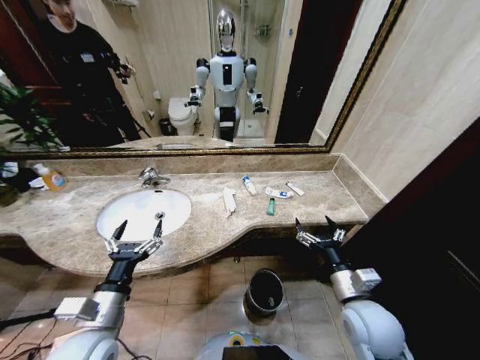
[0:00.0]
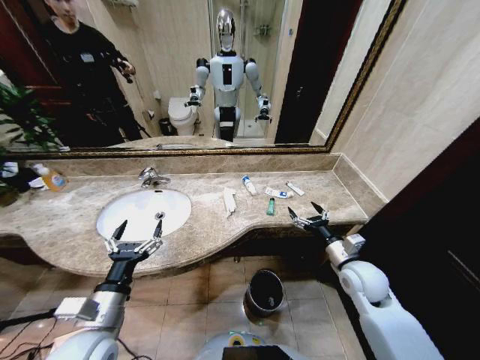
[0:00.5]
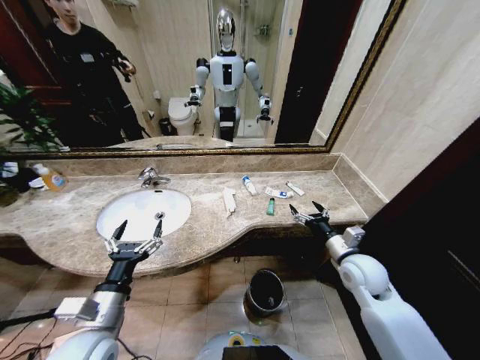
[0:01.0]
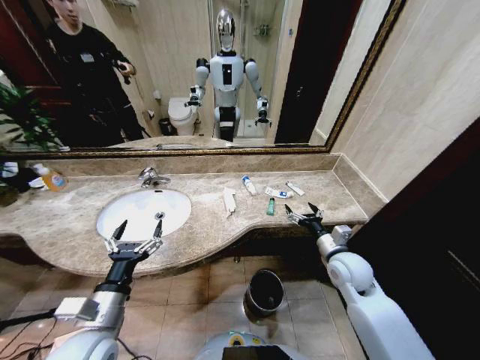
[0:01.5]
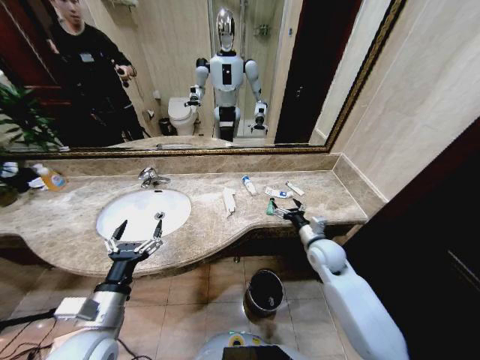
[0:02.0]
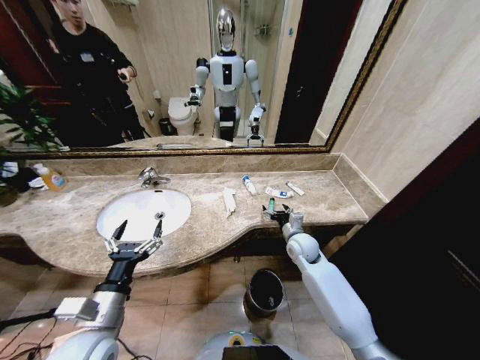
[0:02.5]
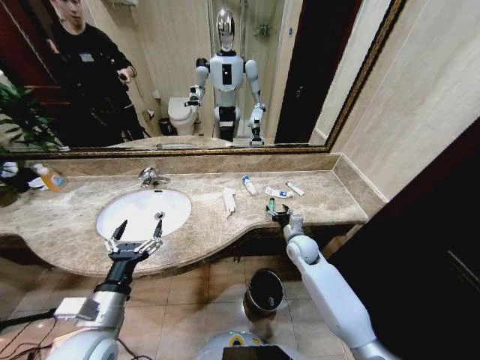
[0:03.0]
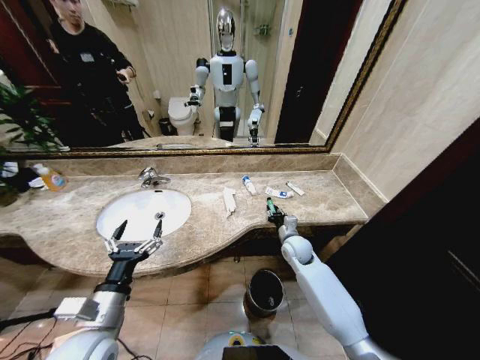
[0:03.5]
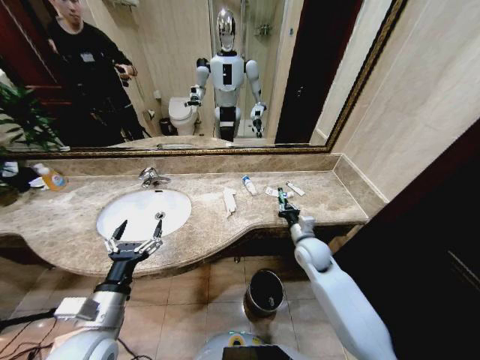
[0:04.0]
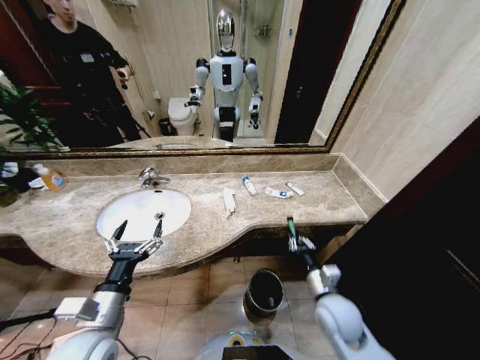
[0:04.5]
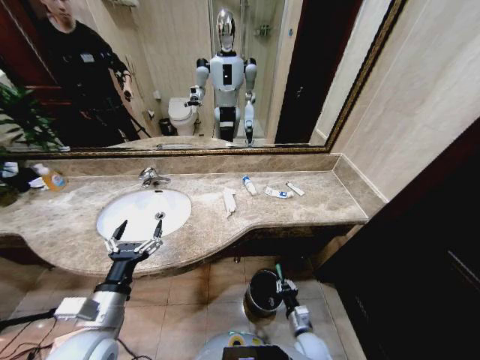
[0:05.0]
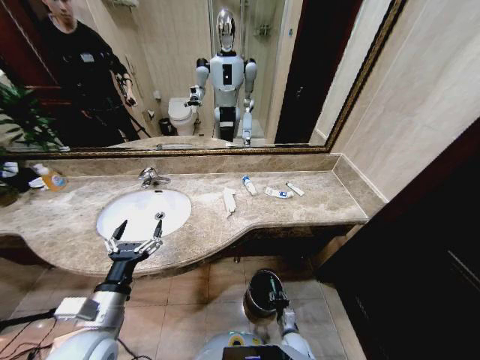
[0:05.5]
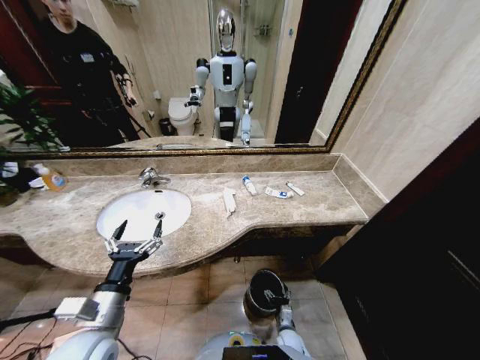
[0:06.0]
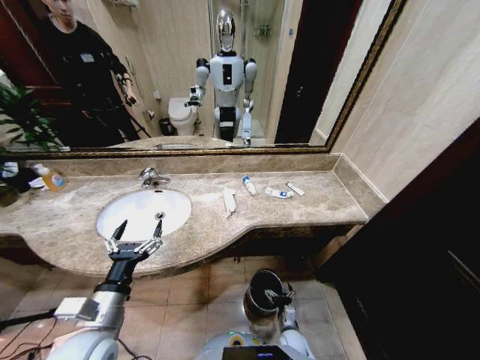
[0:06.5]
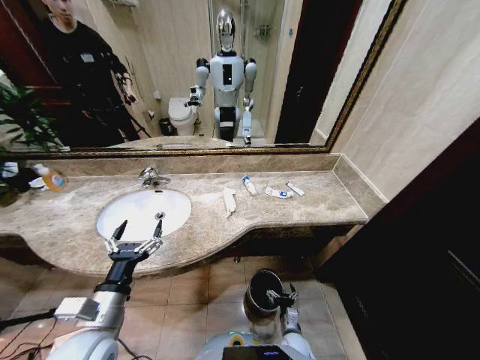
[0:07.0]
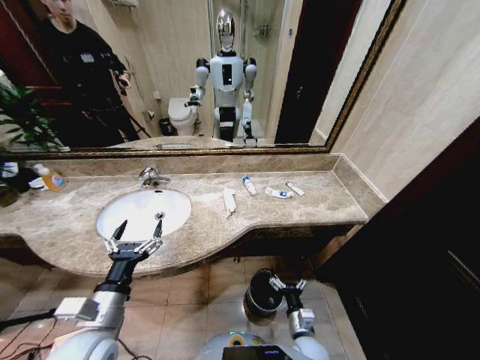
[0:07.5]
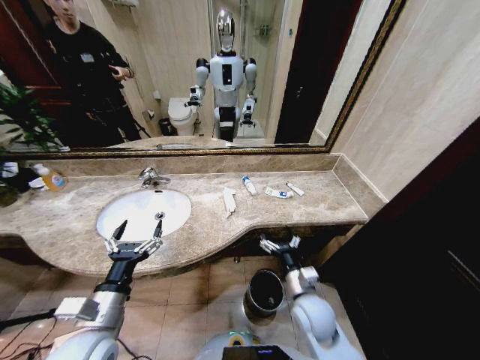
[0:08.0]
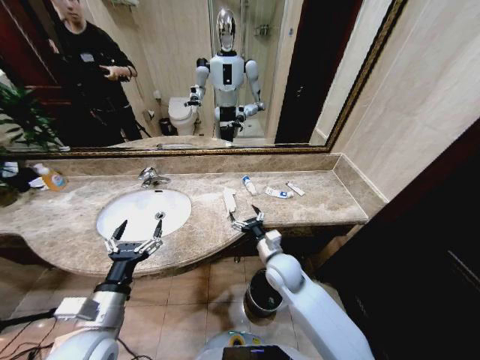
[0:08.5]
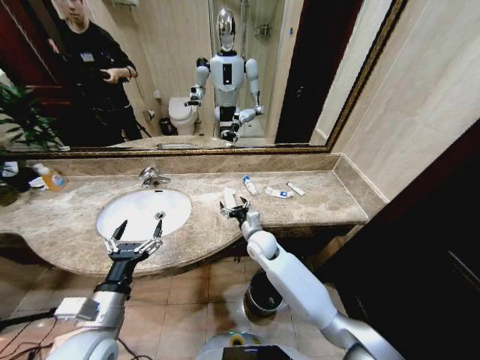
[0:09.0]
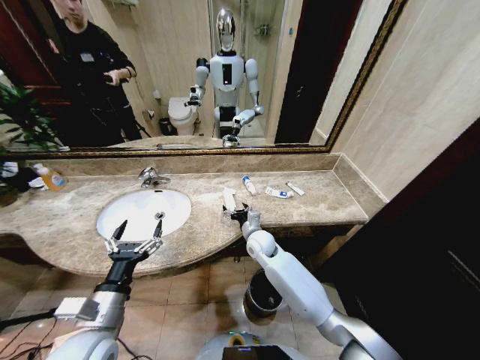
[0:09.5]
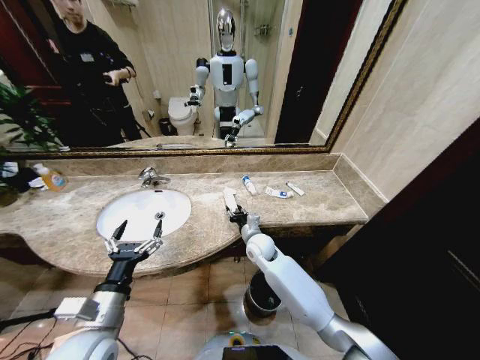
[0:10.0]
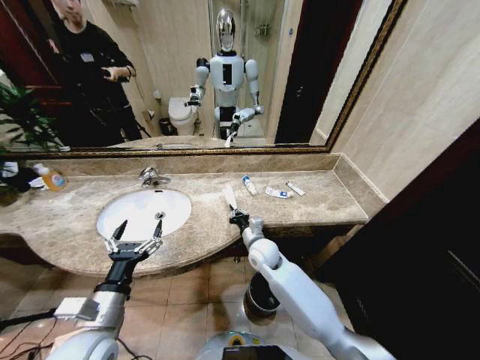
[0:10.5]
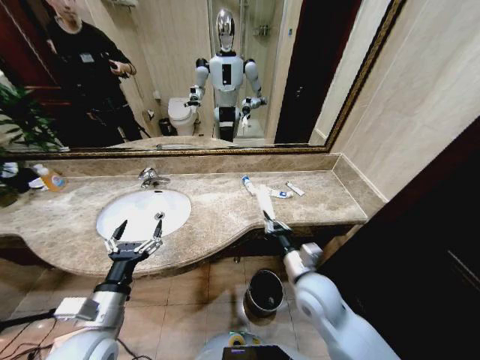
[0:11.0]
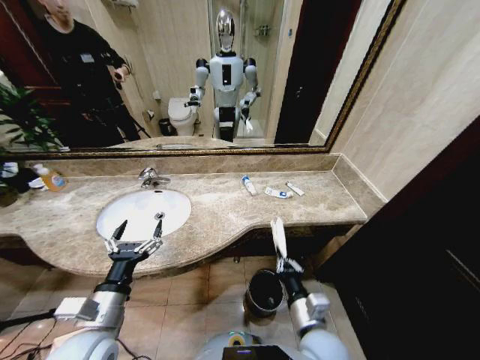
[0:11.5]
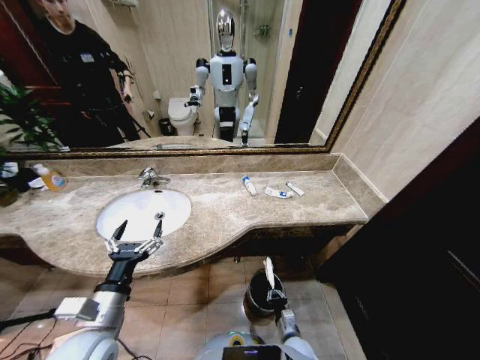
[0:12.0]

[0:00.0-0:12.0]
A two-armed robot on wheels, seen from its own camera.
Task of the whole recording: Pick up the trash from the sink and place it in the trash bin.
2.0 to 4.0 s: The right gripper closes its fingers.
4.0 to 6.0 s: The right gripper shifts some 35 cm downward and backward, and opens its fingers.
6.0 to 8.0 s: The right gripper moves upward, roughly 30 cm.
8.0 to 10.0 s: The right gripper moves forward and to the left, approximately 20 cm, and closes up.
10.0 to 12.0 s: The right gripper moves backward and downward, approximately 30 cm, and closes up.

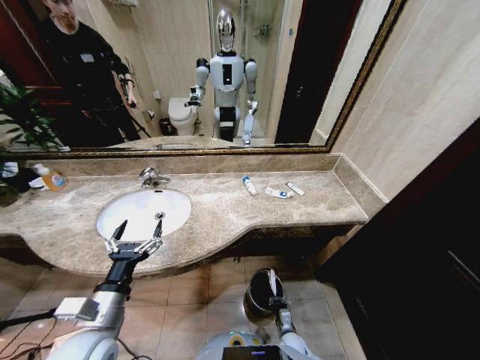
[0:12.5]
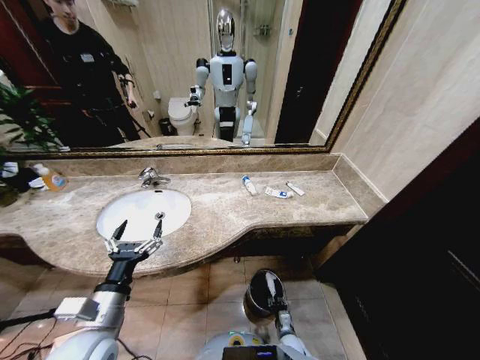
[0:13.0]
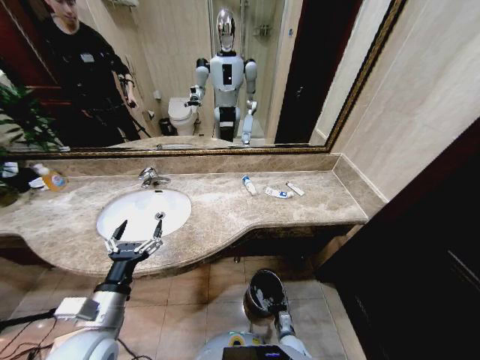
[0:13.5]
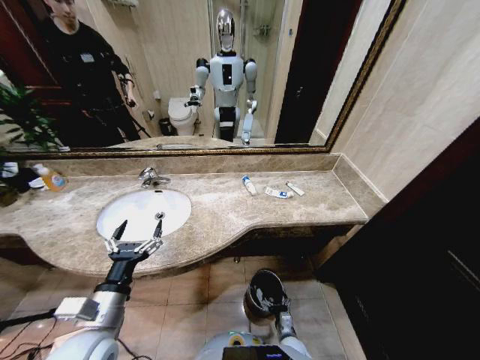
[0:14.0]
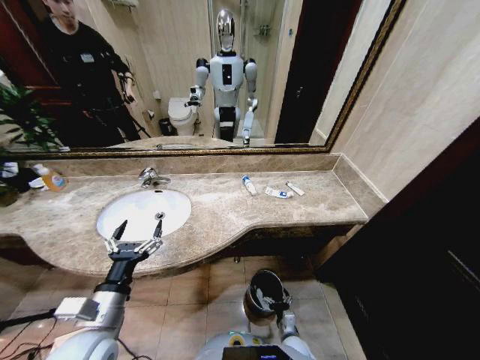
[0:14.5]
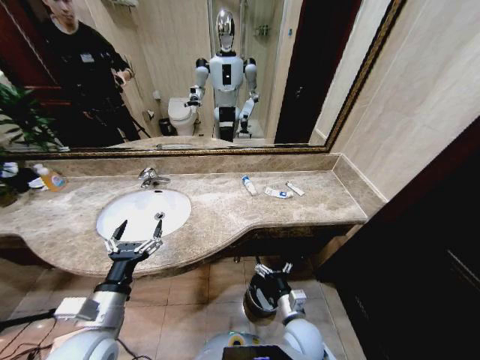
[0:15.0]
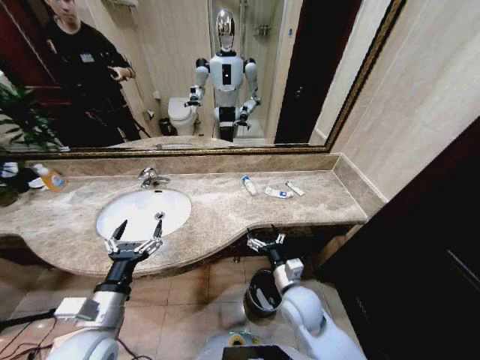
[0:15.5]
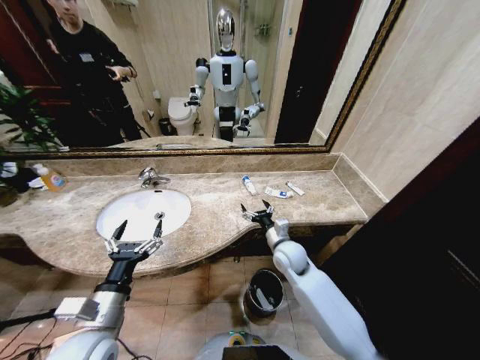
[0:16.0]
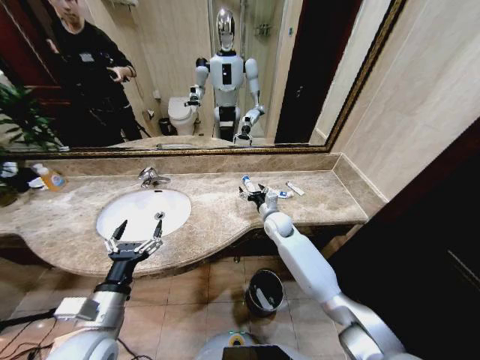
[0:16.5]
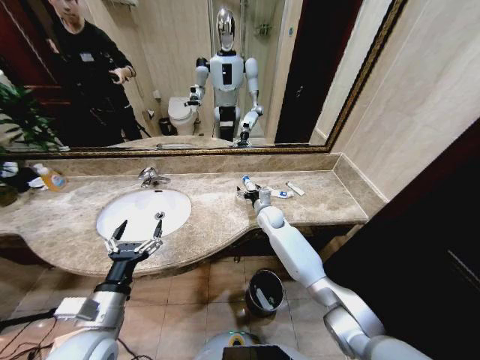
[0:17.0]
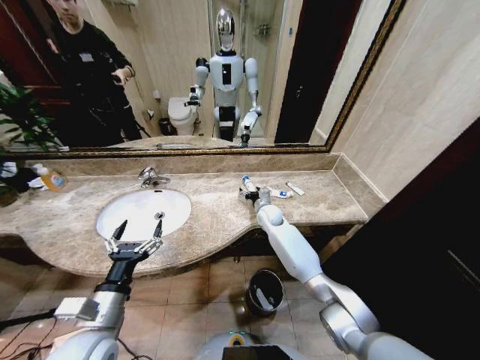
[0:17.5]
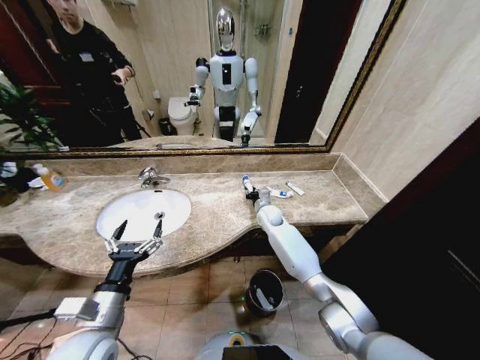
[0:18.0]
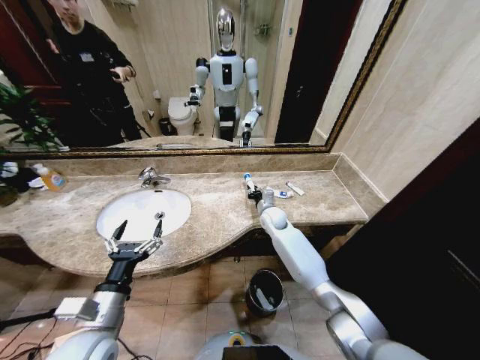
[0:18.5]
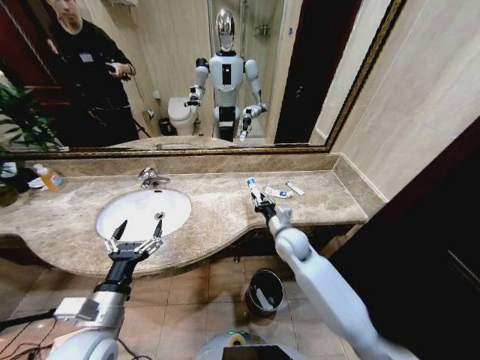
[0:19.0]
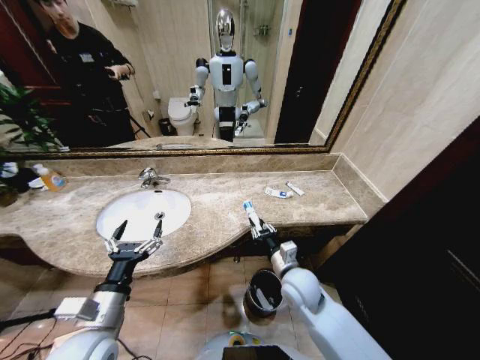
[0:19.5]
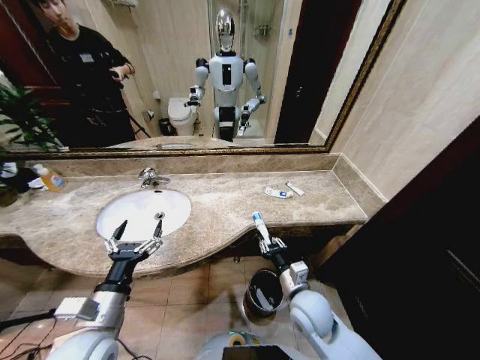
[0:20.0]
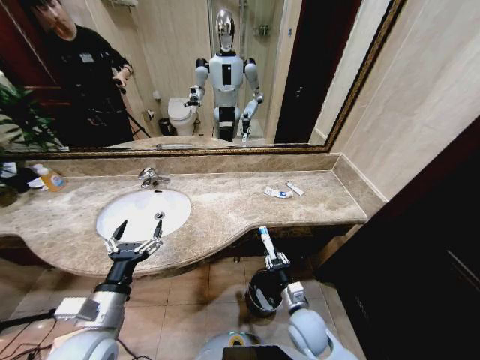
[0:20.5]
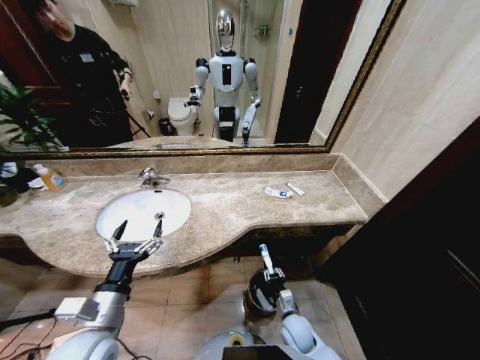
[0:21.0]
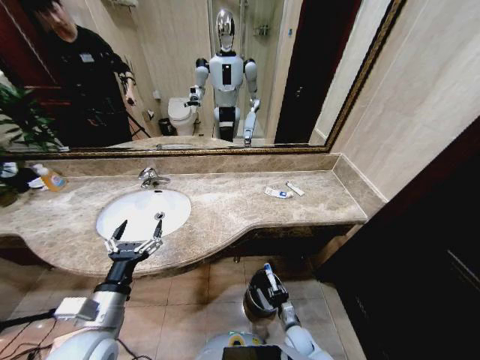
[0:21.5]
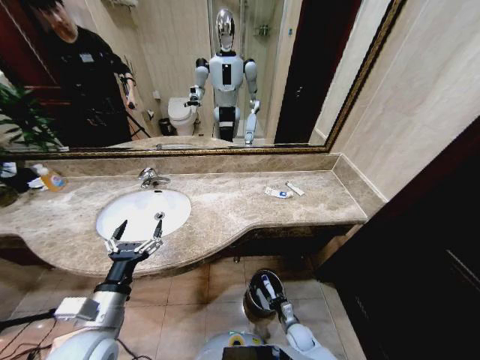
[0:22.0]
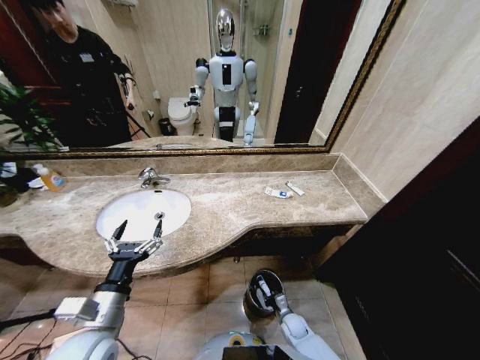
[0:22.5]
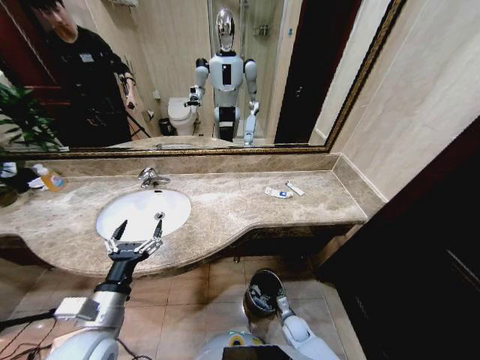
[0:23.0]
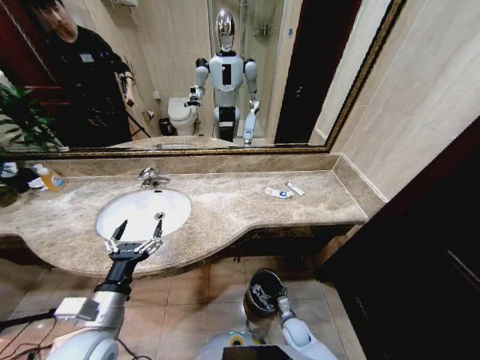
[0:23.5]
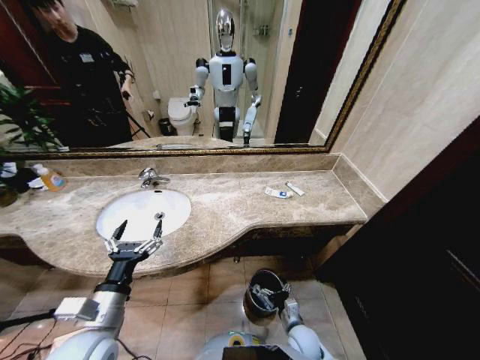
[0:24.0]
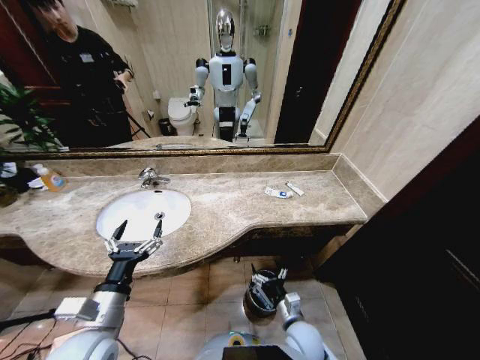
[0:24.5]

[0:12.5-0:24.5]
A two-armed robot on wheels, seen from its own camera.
Task of the whole recording: Pick up the trash from the sink and place it in the trash bin.
12.5 to 14.5 s: The right gripper goes some 5 cm upward, and opens up.
14.5 to 16.5 s: The right gripper moves forward and upward, roughly 40 cm.
16.5 to 18.5 s: The right gripper closes its fingers.
18.5 to 20.5 s: The right gripper shifts roughly 30 cm backward.
20.5 to 22.5 s: The right gripper goes approximately 20 cm downward.
22.5 to 24.5 s: The right gripper goes roughly 20 cm upward, and opens its fingers.

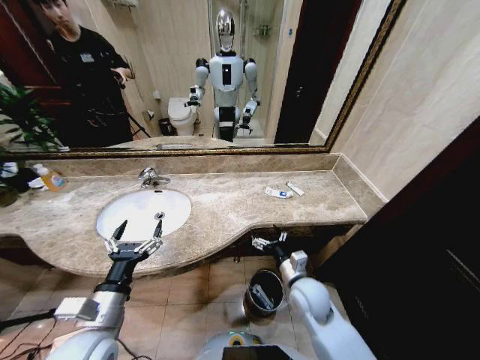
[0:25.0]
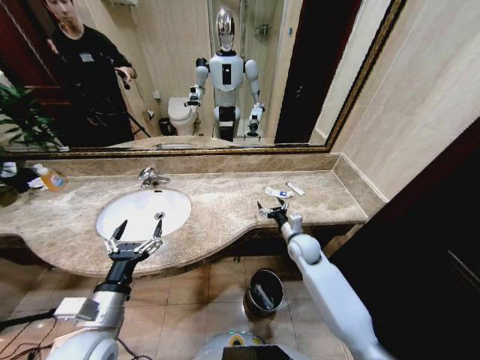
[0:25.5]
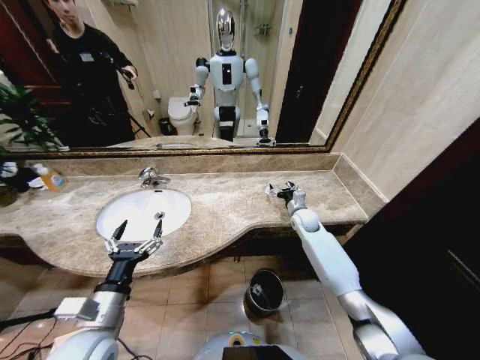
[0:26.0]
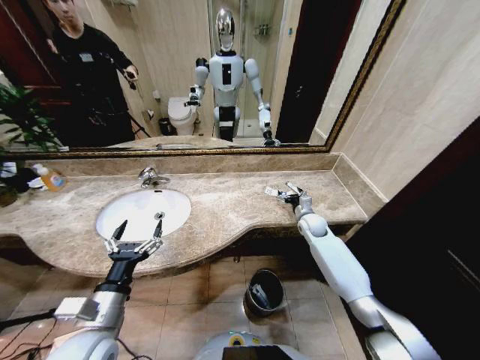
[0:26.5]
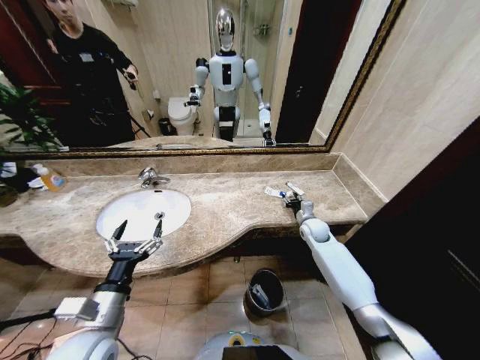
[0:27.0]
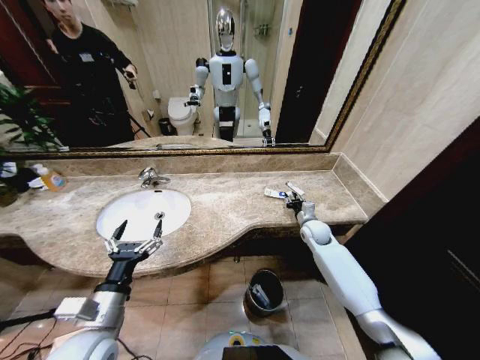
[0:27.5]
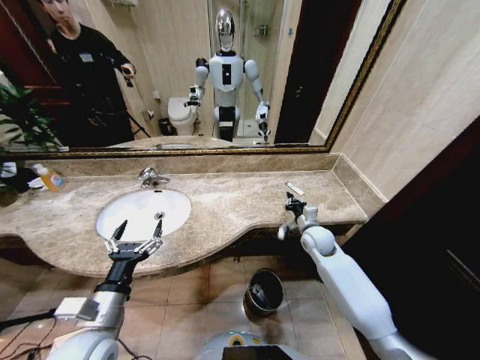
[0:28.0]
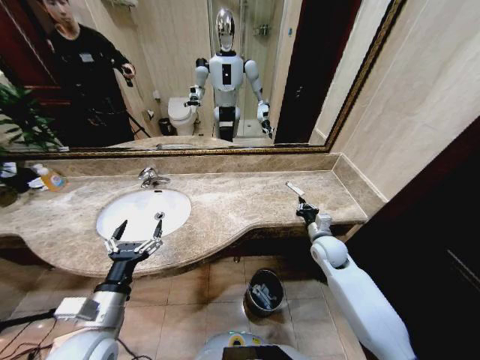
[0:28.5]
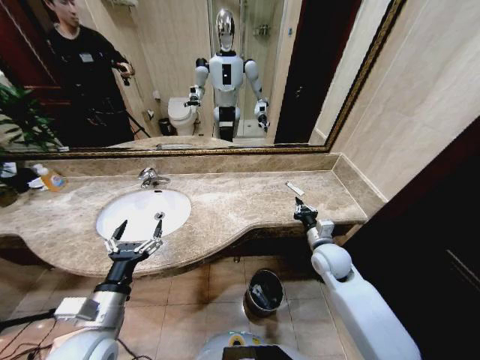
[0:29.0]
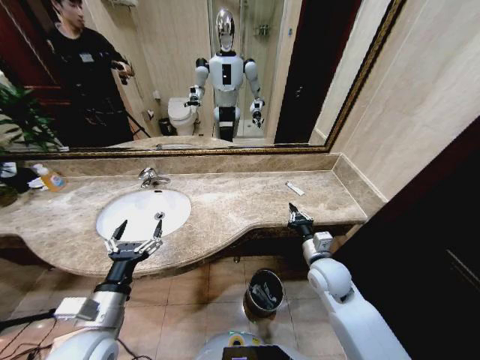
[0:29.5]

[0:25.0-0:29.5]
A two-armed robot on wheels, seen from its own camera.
Task of the whole recording: Pick up the trash from the sink and place it in the trash bin.
25.0 to 27.0 s: The right gripper shifts about 25 cm forward and to the right, and closes.
27.0 to 29.5 s: The right gripper goes roughly 20 cm backward, and closes.
